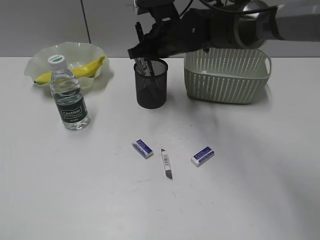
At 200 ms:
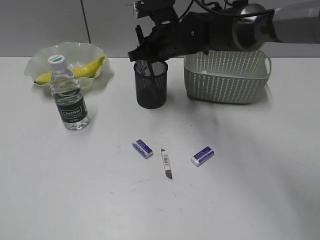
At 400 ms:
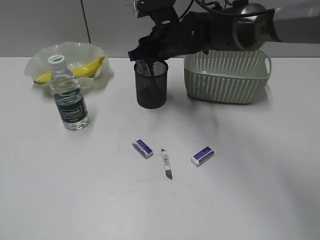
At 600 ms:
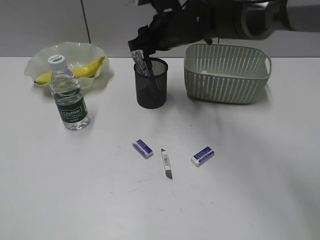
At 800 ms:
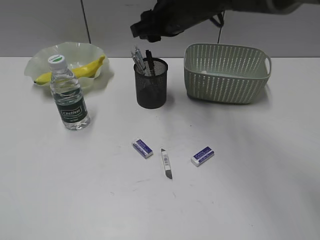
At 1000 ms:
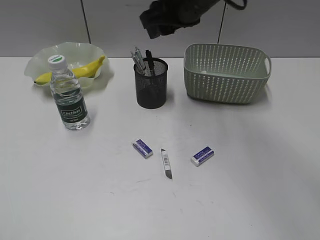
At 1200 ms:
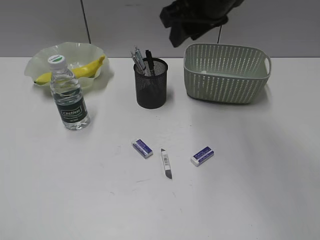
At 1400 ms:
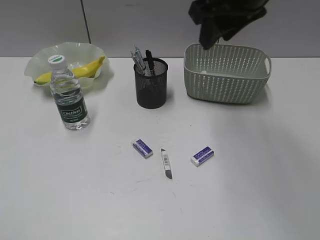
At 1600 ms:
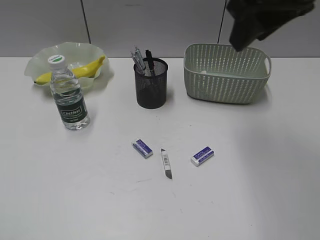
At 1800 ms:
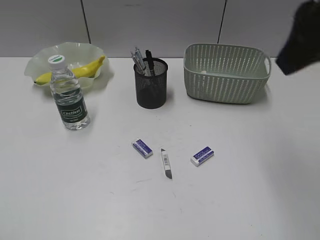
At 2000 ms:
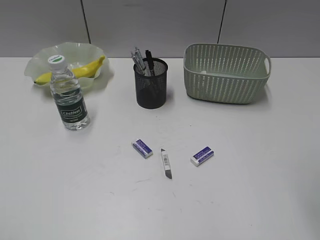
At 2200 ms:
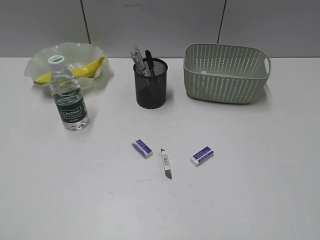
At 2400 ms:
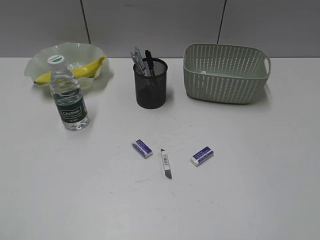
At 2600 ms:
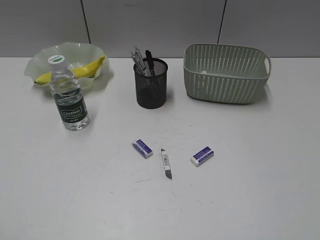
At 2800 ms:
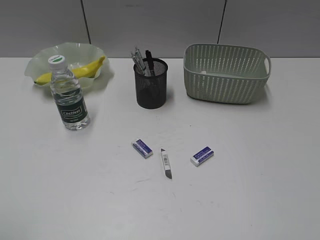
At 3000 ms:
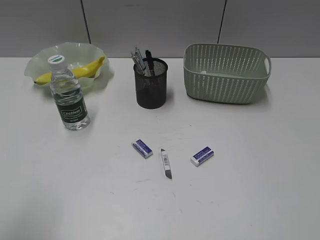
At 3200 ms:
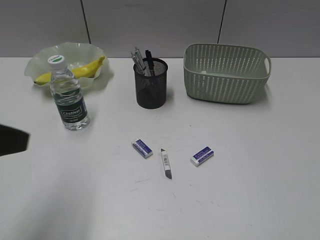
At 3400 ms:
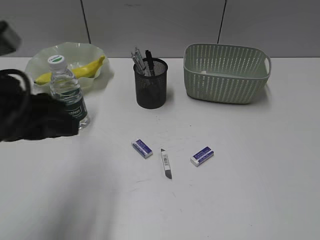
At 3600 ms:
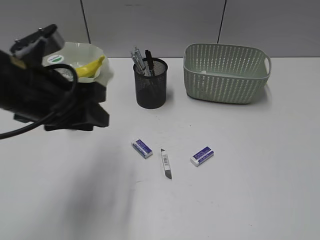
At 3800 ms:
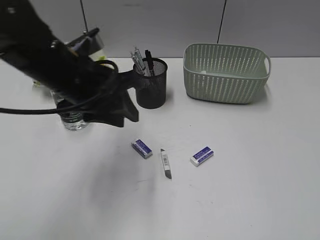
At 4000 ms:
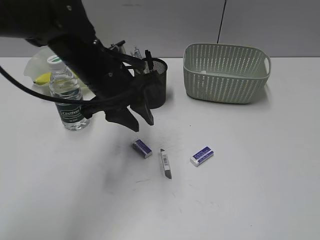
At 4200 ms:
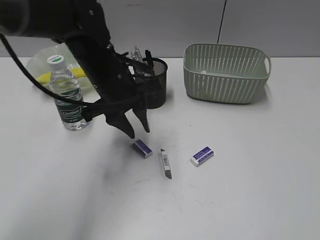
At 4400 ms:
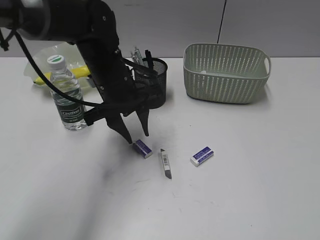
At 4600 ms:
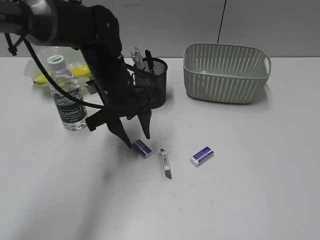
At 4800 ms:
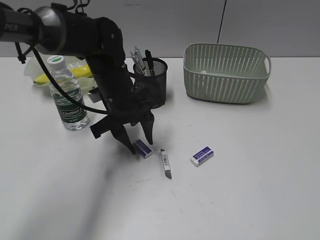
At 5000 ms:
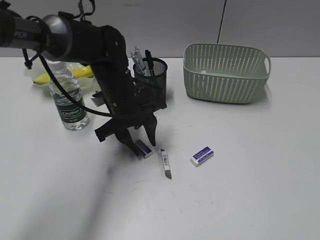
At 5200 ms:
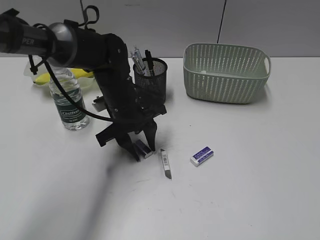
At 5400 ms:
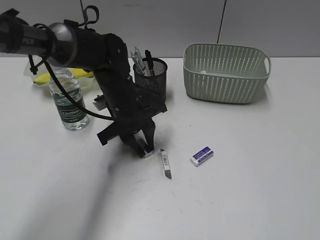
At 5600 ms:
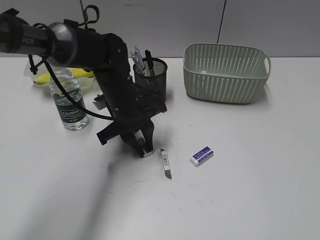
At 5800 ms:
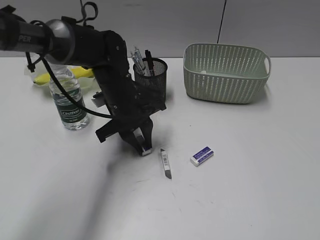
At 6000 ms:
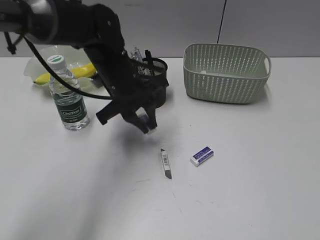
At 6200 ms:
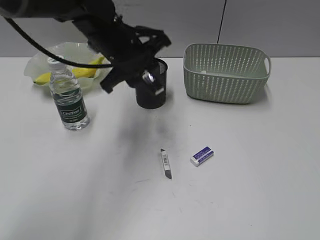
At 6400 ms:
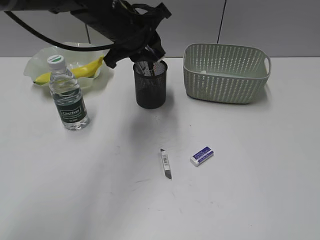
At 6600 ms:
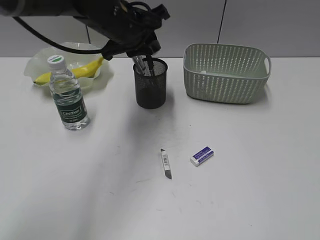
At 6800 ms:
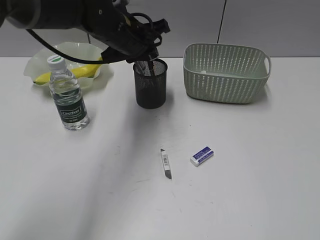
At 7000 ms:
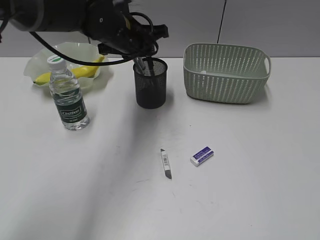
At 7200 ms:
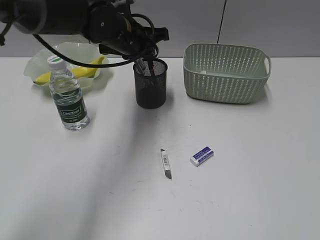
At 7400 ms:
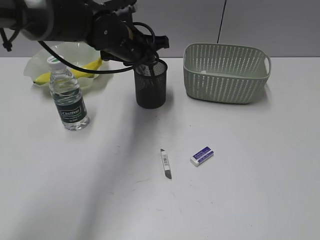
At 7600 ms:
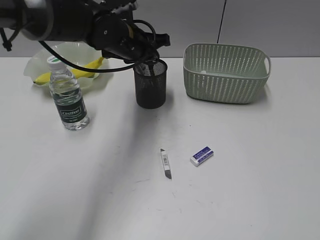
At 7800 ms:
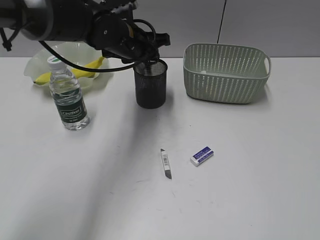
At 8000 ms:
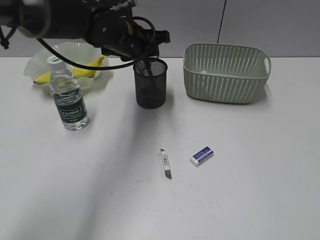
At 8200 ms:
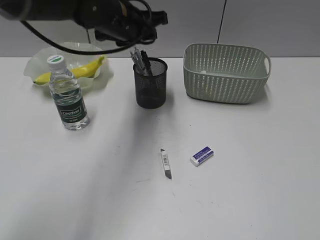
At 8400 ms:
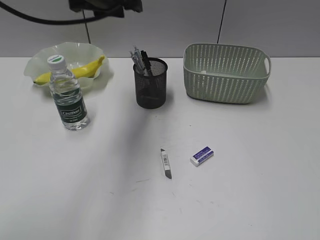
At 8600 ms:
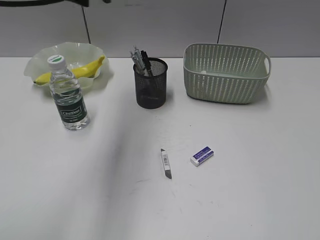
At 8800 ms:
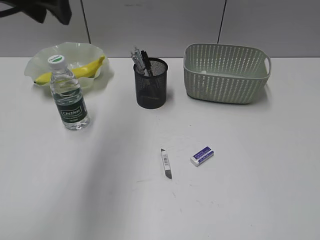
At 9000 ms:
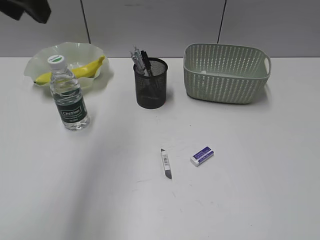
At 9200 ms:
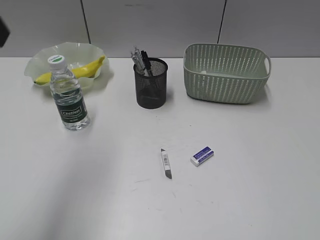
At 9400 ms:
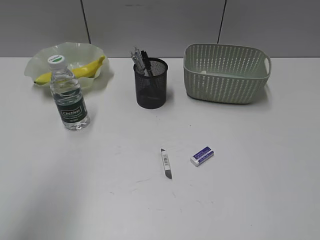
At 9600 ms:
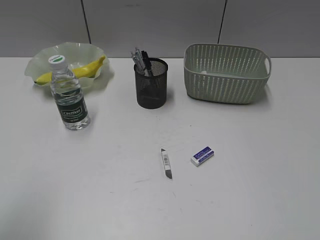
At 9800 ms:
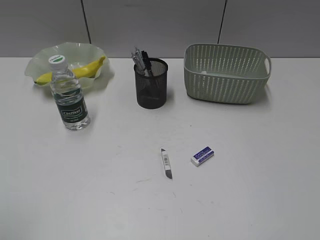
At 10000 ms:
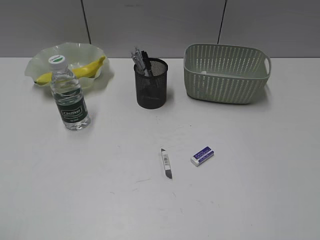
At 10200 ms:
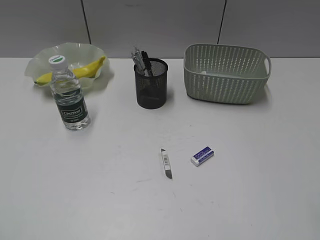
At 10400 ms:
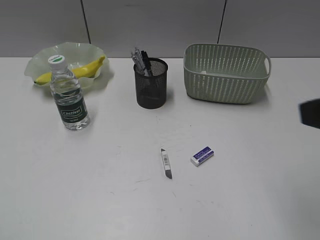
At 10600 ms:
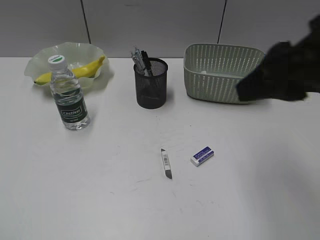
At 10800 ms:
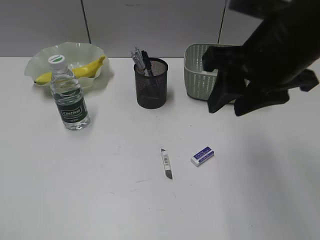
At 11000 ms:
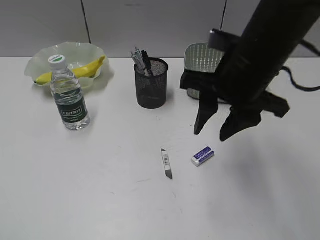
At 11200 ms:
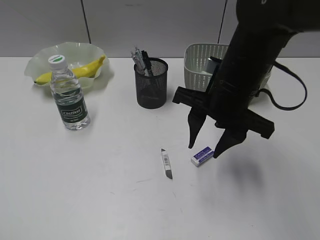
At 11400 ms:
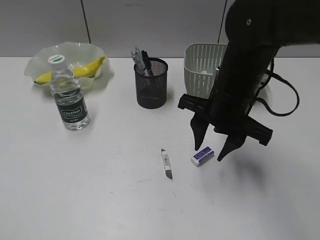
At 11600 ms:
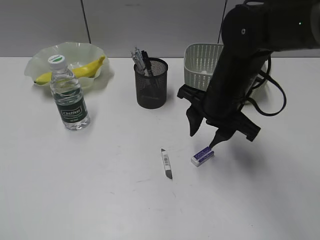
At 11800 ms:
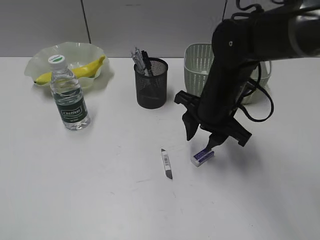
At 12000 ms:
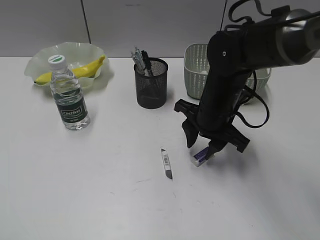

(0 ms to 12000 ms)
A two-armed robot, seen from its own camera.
Step, 600 ms - 5600 ms: Grasp the eraser with left gripper.
Step, 5800 ms - 7800 ms: Place the eraser in pen holder with left gripper.
0 ms - 1600 ms: The right gripper is displaced upward, backward and to the right by roughly 25 cm, and opens.
1600 ms - 3000 ms: The right gripper goes some 35 cm backward and to the right. Meanwhile the left gripper moves forward, roughly 5 cm.
3000 ms - 4400 ms: The left gripper heads forward, to the right and downward, covering about 35 cm.
4400 ms - 6000 ms: There are only small adjustments of the grippers.
6000 ms - 7600 ms: The left gripper goes approximately 5 cm forward.
7600 ms - 9000 ms: The left gripper shifts approximately 25 cm upward, backward and to the left.
9000 ms - 10400 ms: The left gripper travels backward, to the left and downward by approximately 35 cm. The right gripper goes approximately 15 cm forward and to the left.
10400 ms - 12000 ms: The right gripper moves forward, downward and to the left, some 30 cm.

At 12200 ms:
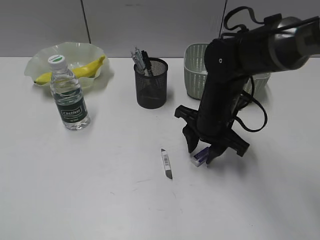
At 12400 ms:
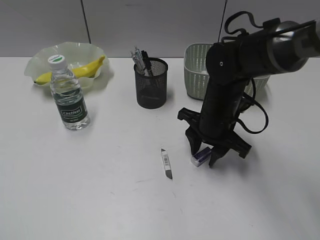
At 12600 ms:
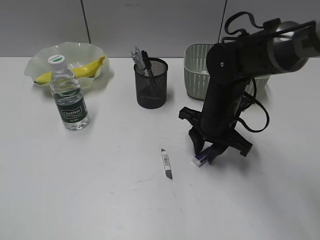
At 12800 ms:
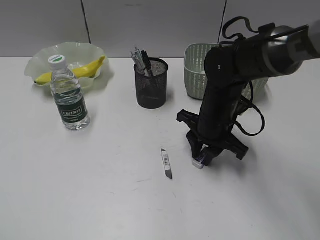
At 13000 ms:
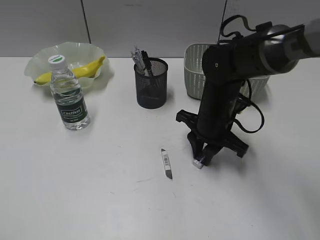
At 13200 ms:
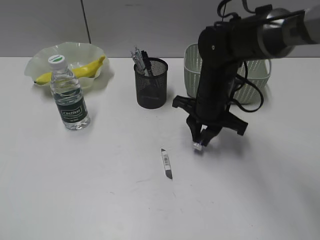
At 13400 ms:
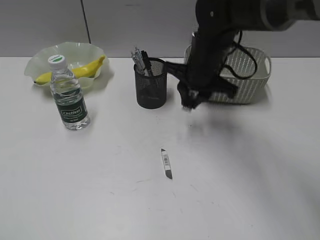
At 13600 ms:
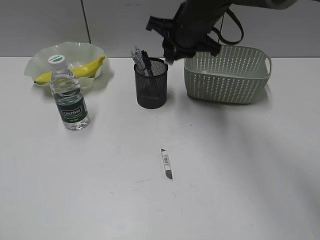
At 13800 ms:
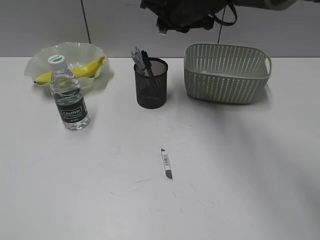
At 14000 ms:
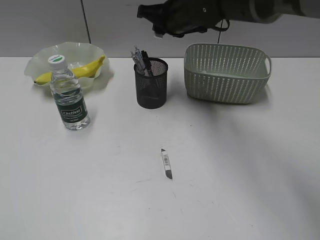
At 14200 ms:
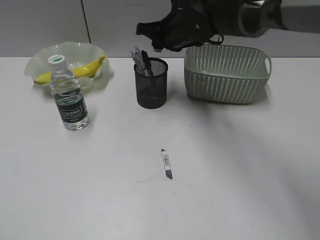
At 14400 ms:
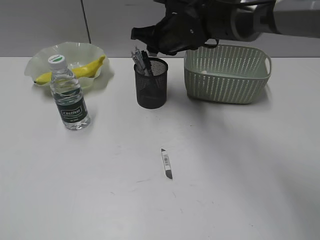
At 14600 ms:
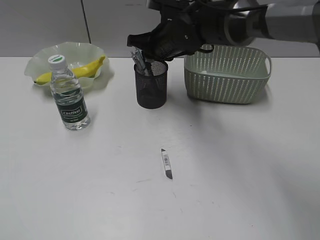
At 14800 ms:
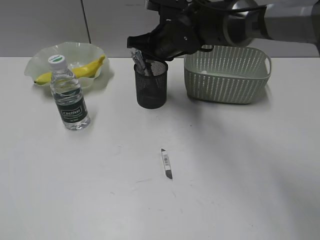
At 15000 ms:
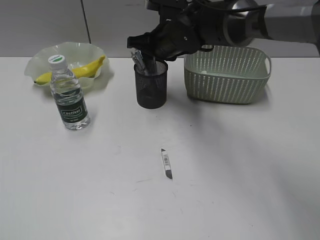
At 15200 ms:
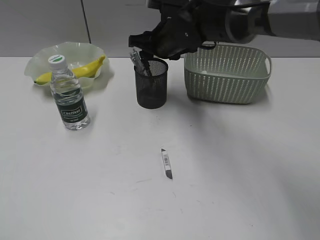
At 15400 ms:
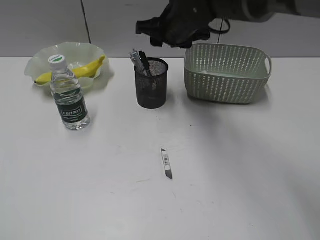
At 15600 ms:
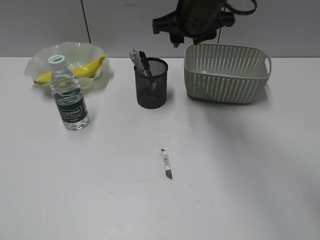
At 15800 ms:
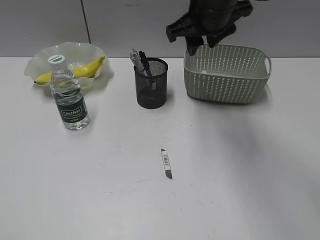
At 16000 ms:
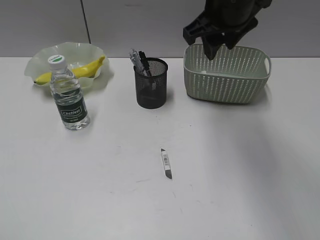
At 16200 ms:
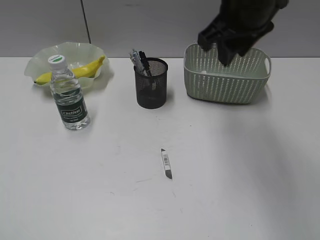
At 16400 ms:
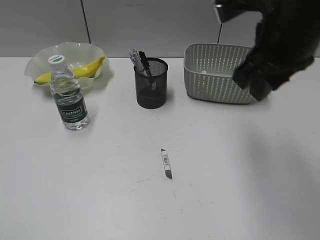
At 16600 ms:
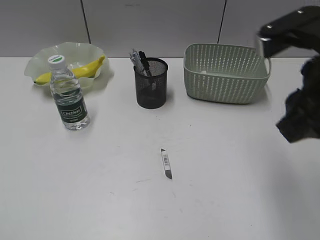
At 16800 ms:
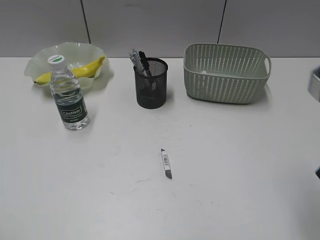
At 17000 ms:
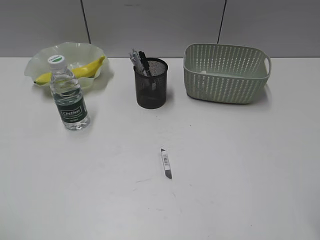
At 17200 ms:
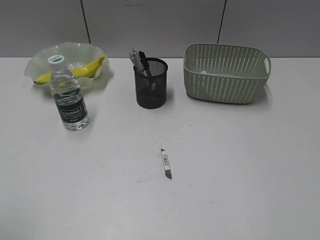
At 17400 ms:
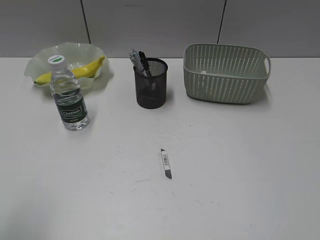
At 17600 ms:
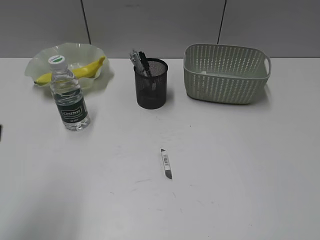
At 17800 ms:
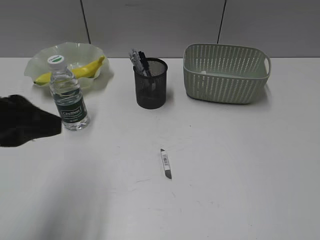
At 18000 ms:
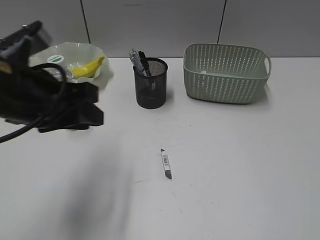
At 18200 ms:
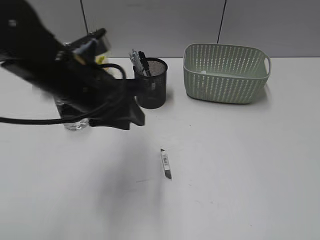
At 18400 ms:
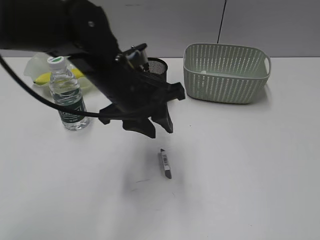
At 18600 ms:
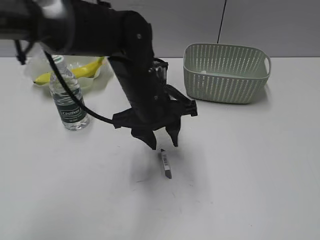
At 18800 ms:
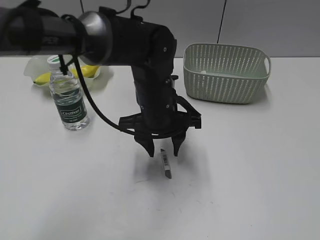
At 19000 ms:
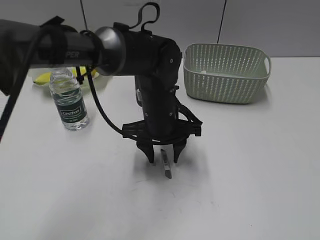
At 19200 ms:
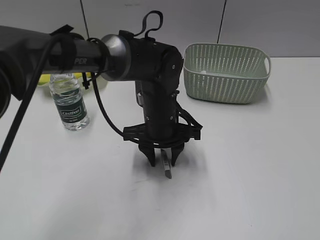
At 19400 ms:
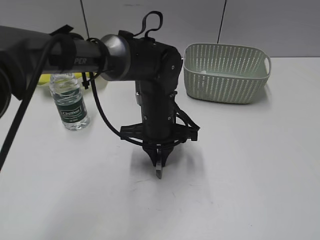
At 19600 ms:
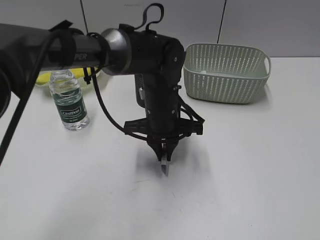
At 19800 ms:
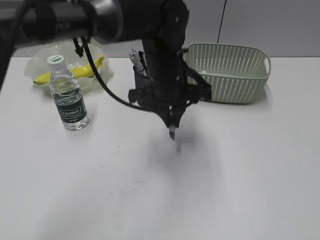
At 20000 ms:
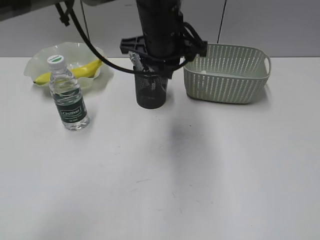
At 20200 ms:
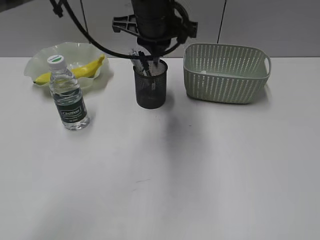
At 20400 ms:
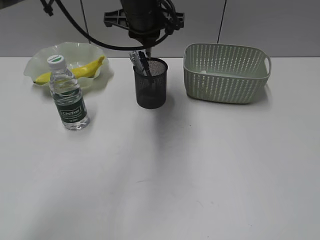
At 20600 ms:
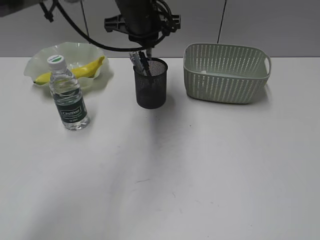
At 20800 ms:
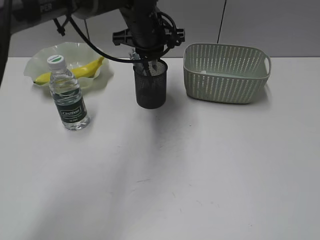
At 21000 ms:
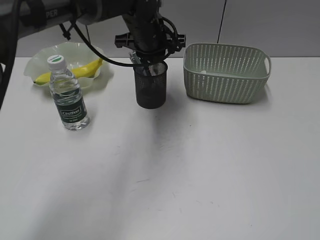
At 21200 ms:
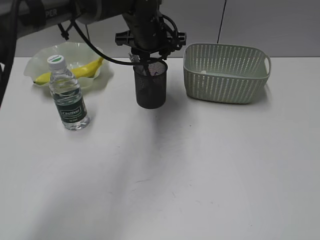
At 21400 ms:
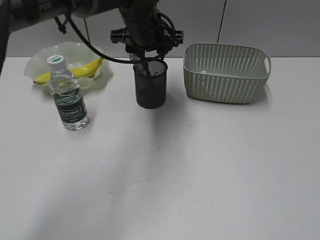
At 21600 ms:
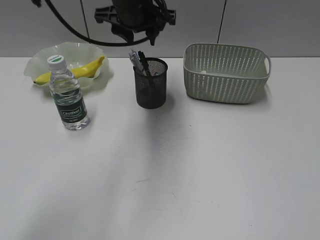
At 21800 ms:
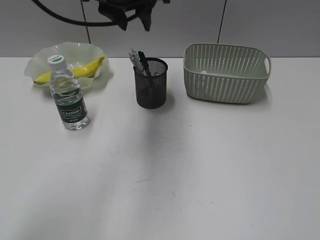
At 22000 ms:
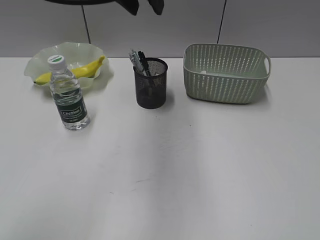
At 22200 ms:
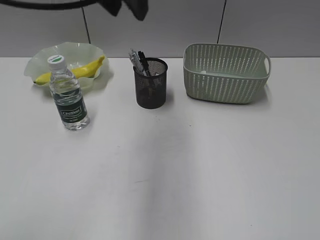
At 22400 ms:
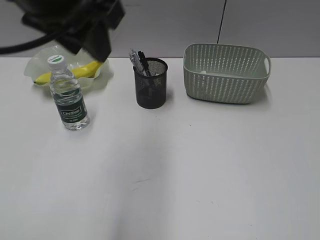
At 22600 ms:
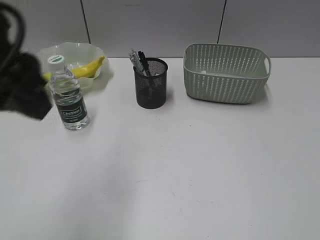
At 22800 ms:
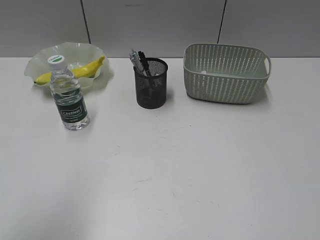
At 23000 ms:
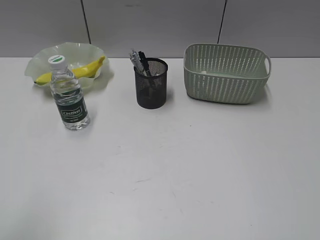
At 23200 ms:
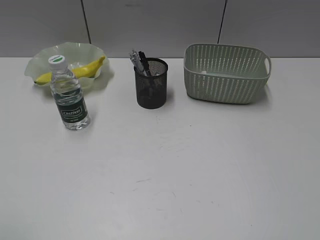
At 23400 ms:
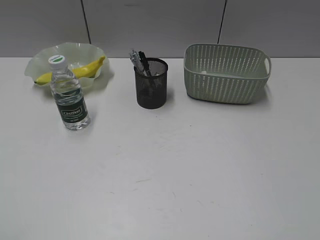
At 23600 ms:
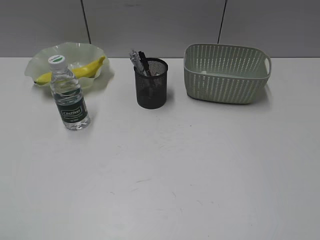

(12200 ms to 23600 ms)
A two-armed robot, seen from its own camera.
Step, 13000 ms - 15200 ms: Place the eraser in pen holder with right gripper.
Step, 15400 ms - 19400 ms: Grasp the eraser with left gripper.
Step, 19600 ms - 21200 ms: Place the eraser in pen holder with left gripper.
12200 ms - 13600 ms: The right gripper shifts some 15 cm upward and forward, and closes its fingers.
13600 ms - 15000 ms: The right gripper changes place by approximately 5 cm.
15000 ms - 16400 ms: The right gripper moves backward, upward and to the right, approximately 25 cm.
16400 ms - 17800 ms: The left gripper travels forward and to the right by some 20 cm. The right gripper heads backward and to the right, covering about 35 cm.
17800 ms - 19400 ms: The left gripper moves to the right, forward and downward, roughly 30 cm.
19400 ms - 20800 ms: The left gripper is displaced upward and forward by roughly 15 cm.
20800 ms - 22200 ms: The left gripper goes roughly 20 cm upward and backward, and opens.
22200 ms - 23600 ms: The left gripper moves backward and to the left, roughly 40 cm.
